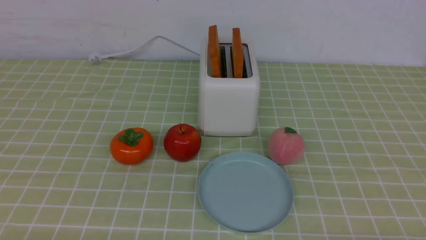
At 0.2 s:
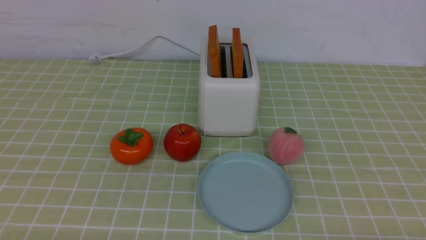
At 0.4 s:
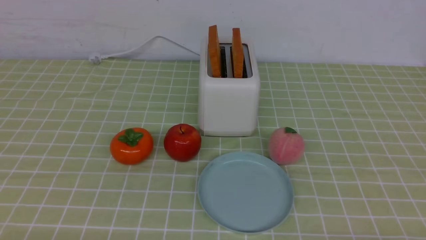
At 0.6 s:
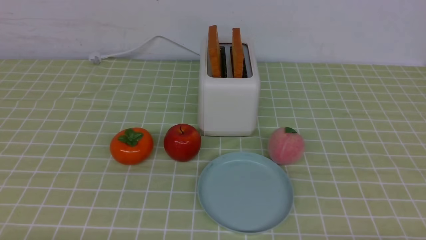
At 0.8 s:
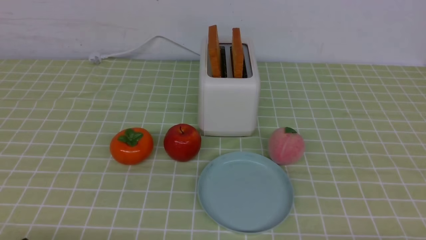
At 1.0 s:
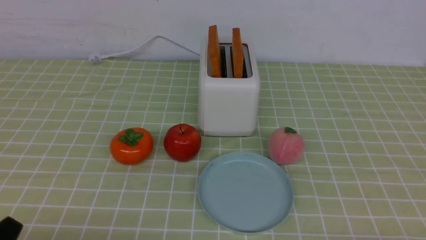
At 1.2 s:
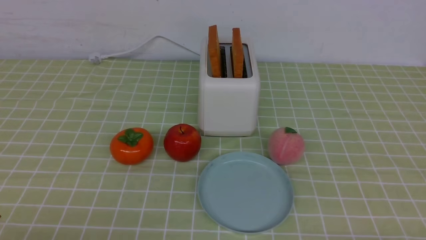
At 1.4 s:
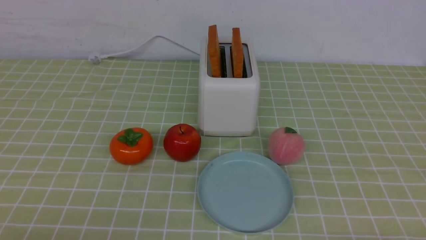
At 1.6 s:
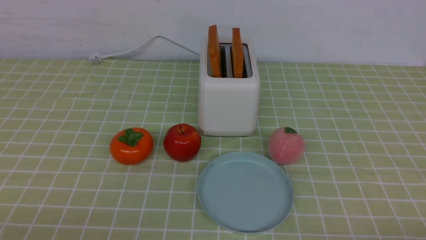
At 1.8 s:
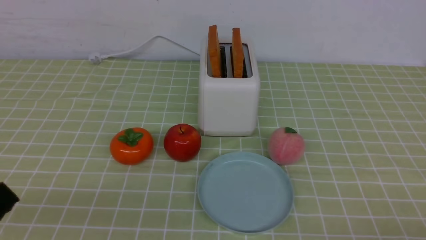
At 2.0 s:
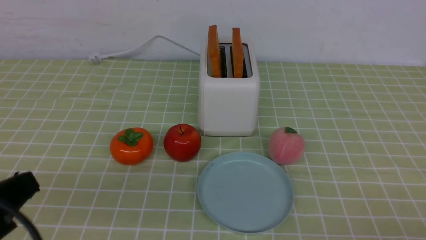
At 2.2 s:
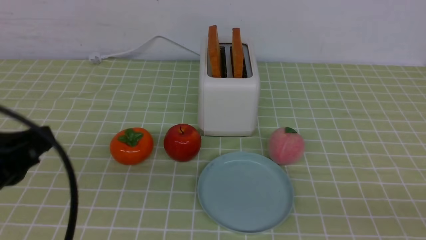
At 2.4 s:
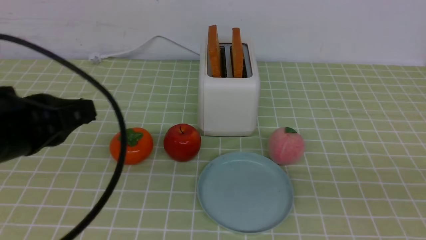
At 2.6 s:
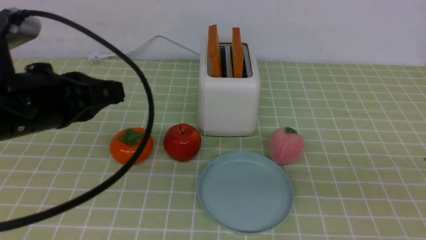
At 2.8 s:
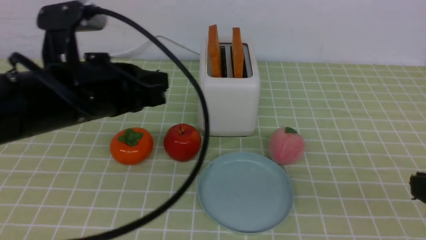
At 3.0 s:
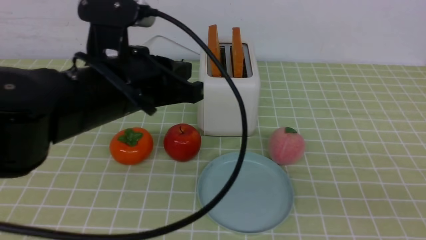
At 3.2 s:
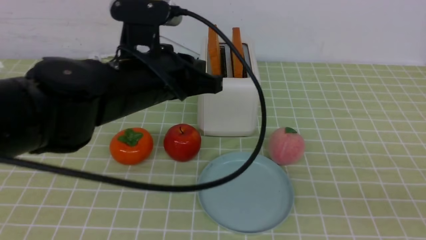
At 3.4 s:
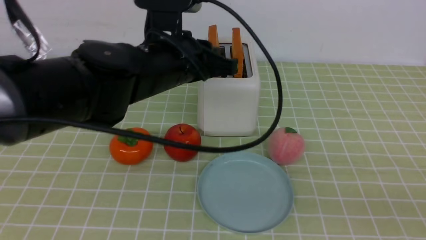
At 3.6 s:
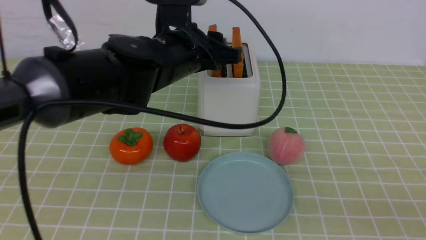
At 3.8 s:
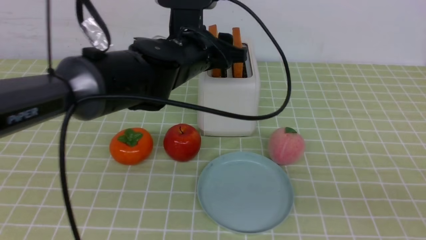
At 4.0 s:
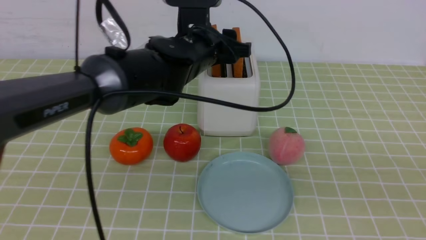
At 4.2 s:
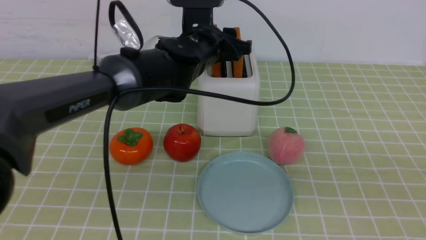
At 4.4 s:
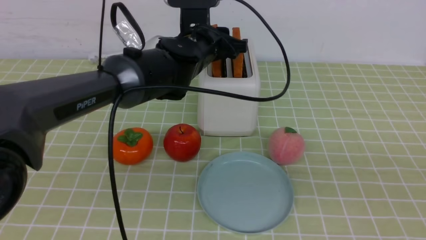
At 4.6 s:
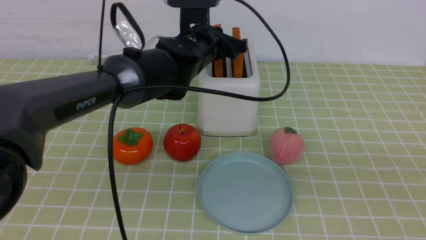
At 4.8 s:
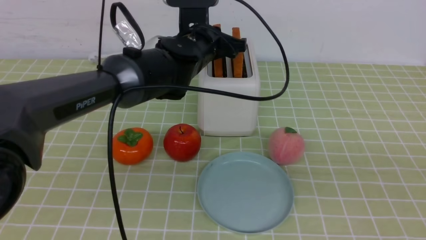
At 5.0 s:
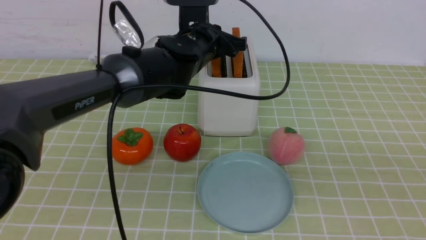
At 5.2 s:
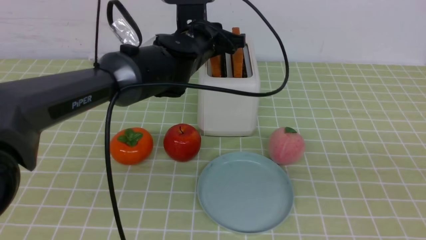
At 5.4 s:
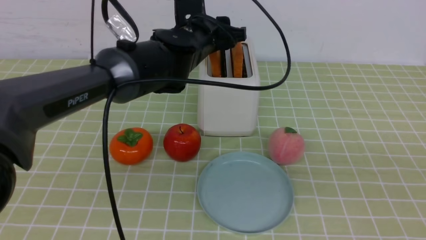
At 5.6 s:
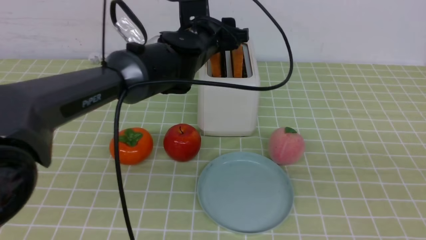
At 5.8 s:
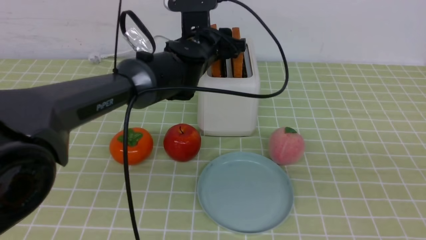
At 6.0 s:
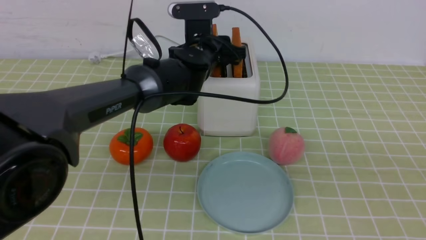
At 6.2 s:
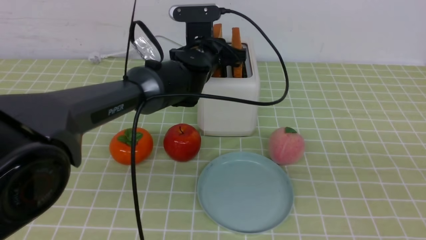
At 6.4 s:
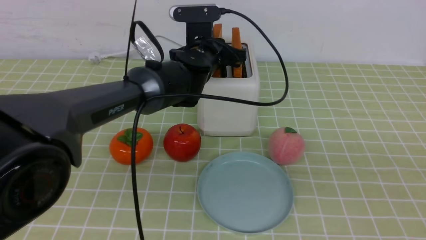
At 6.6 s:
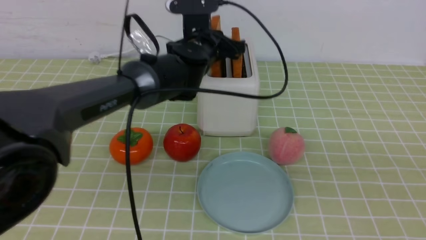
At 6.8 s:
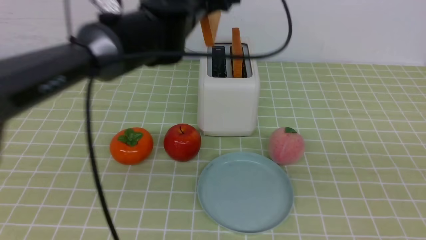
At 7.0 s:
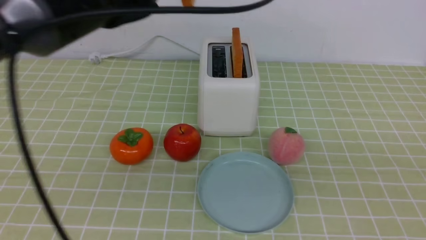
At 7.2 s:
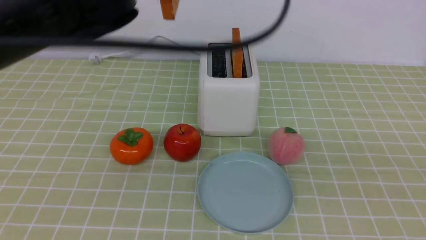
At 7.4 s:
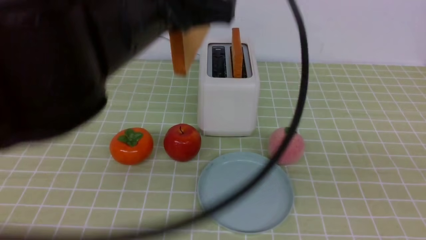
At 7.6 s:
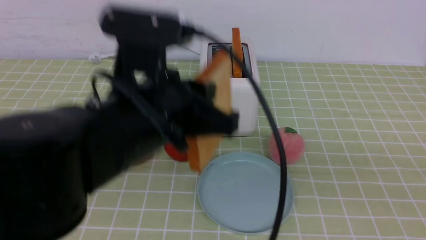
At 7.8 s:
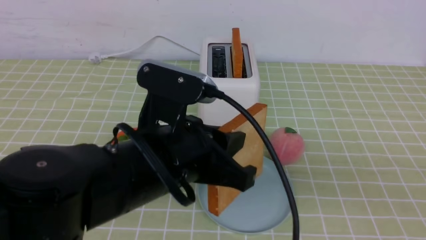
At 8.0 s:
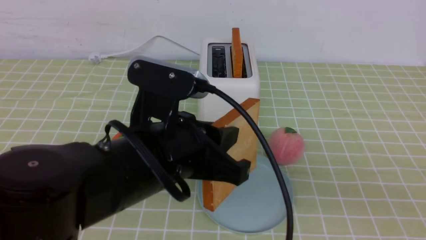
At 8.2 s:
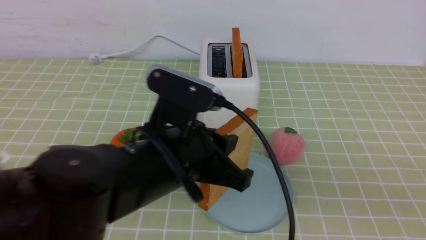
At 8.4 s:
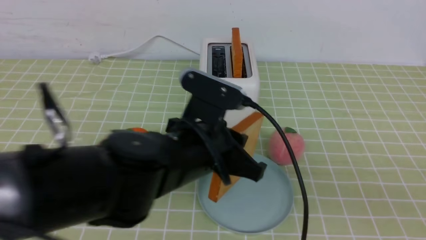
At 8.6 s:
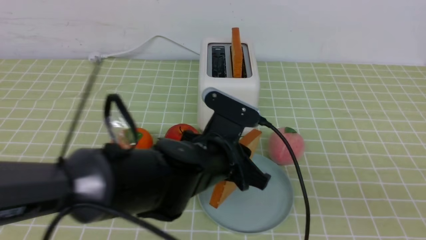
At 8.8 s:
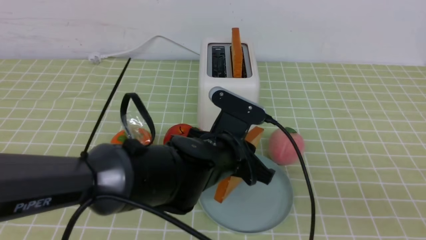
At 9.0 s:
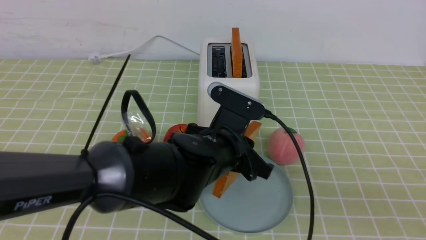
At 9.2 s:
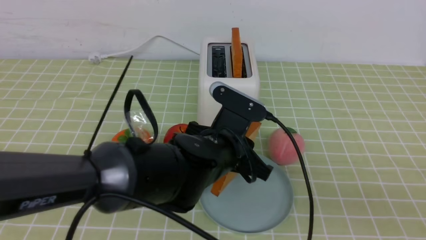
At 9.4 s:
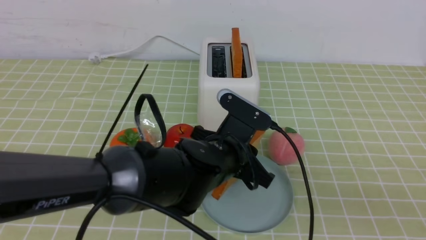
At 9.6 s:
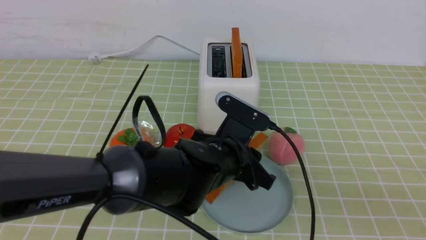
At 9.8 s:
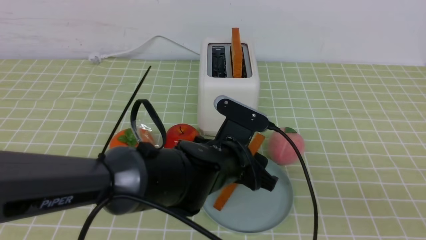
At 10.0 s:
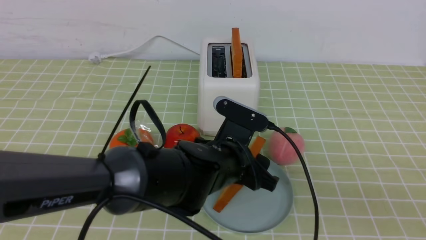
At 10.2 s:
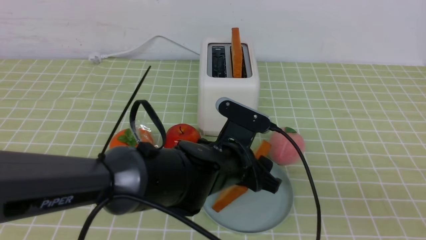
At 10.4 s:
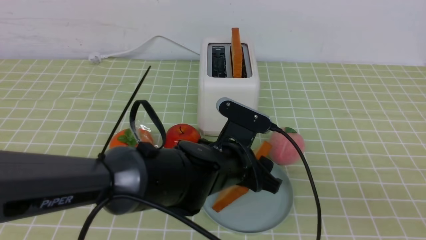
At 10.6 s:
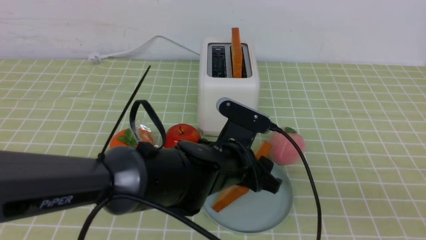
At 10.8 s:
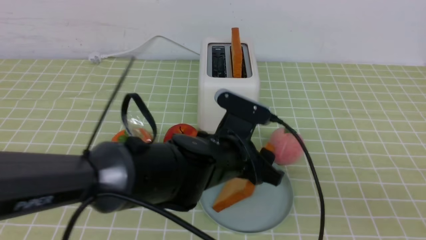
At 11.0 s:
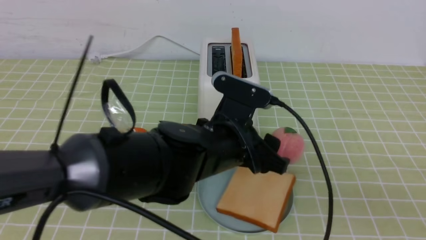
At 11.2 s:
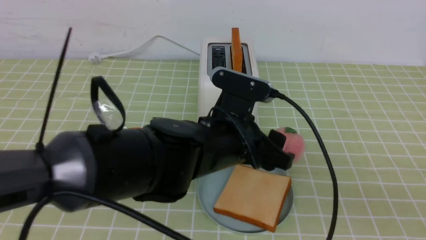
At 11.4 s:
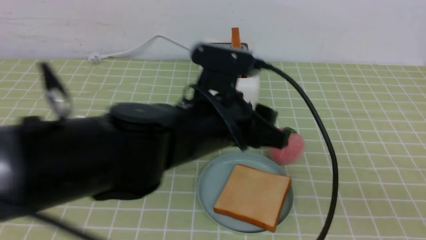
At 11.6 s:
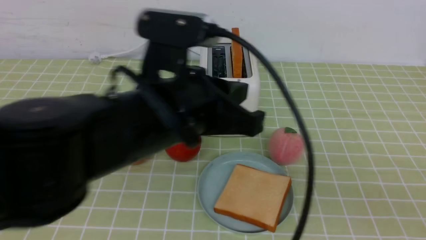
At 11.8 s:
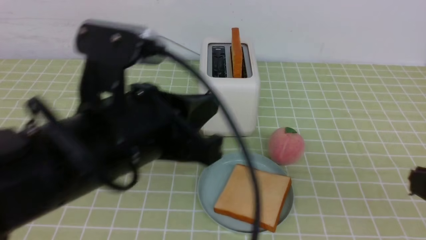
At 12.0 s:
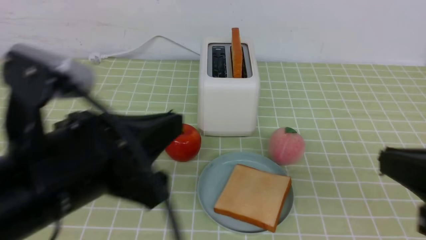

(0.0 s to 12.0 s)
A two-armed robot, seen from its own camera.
Task of the whole recording: take toasted bread from bread machine on green coffee tablecloth place on plate.
Step, 0.0 s - 6.8 s: use the left arm to take out a slice of bread.
Step, 7.0 s - 11.2 s: use the left arm to put a slice of bread into the empty plate.
1.6 s - 3.0 s: The left gripper goes some 25 cm forward, to the right and upward. Meanwhile the right gripper shifts some 15 cm upward, and closes.
3.0 s - 4.4 s: The left gripper shifts some 20 cm forward and to the right, and opens its fingers.
4.4 s - 6.0 s: The left gripper closes, then opens again.
6.0 s - 7.6 s: The left gripper shifts about 25 cm backward, and closes up.
7.6 s - 9.0 s: The left gripper travels downward, forward and to the right by some 15 cm.
9.0 s - 10.4 s: The left gripper opens its fingers.
10.4 s - 12.0 s: The left gripper heads to the left, backward and upward, covering approximately 25 cm, and closes, while the right gripper goes roughly 5 cm to the left.

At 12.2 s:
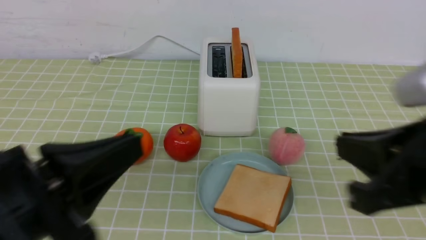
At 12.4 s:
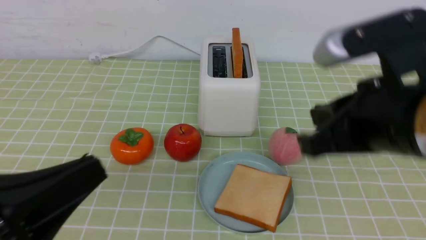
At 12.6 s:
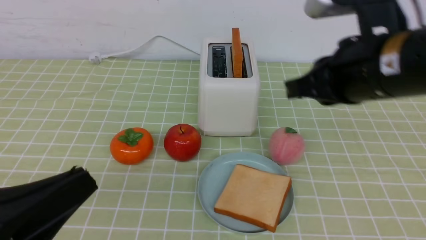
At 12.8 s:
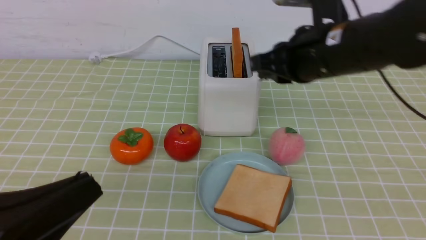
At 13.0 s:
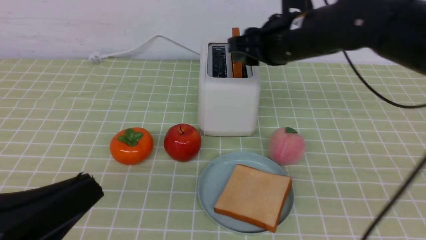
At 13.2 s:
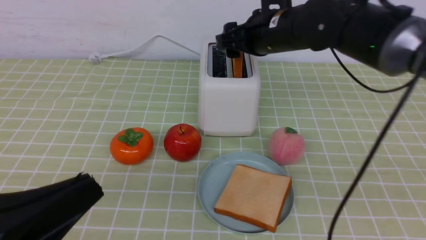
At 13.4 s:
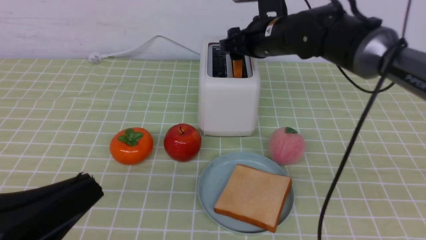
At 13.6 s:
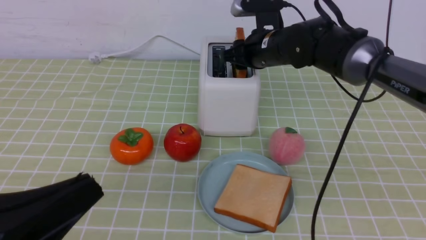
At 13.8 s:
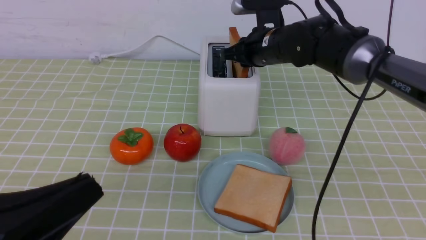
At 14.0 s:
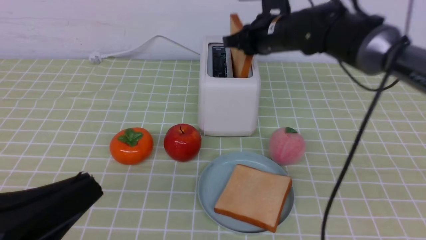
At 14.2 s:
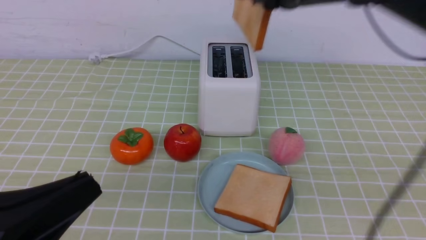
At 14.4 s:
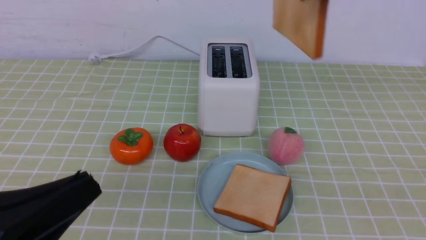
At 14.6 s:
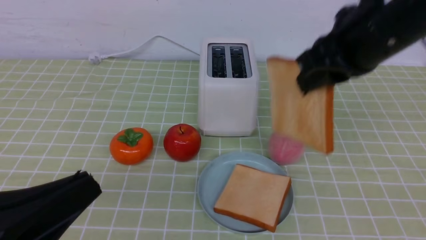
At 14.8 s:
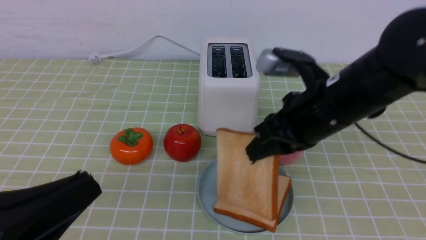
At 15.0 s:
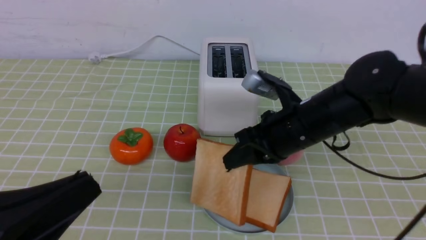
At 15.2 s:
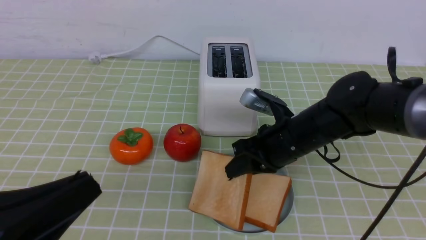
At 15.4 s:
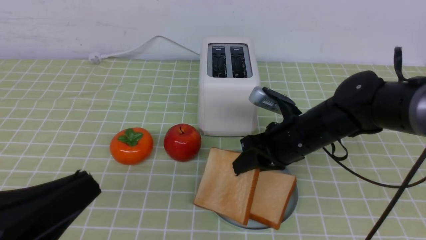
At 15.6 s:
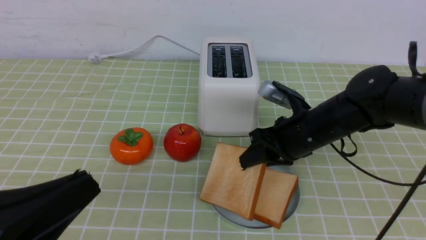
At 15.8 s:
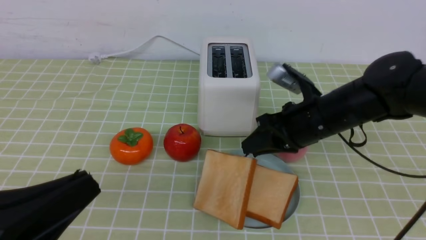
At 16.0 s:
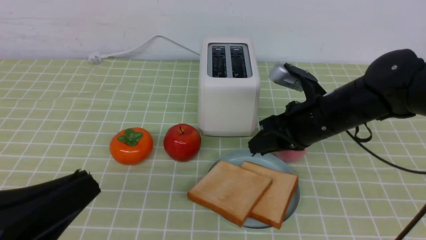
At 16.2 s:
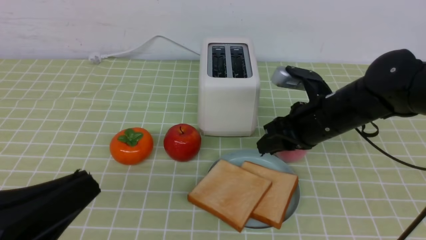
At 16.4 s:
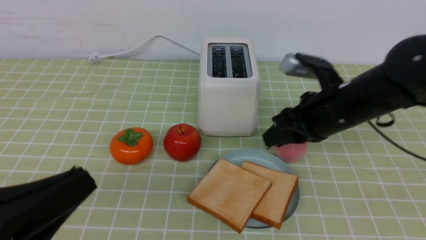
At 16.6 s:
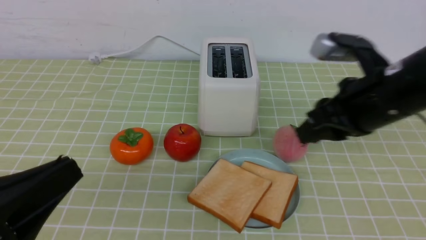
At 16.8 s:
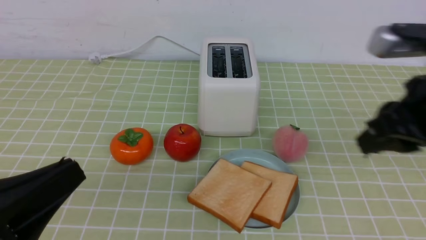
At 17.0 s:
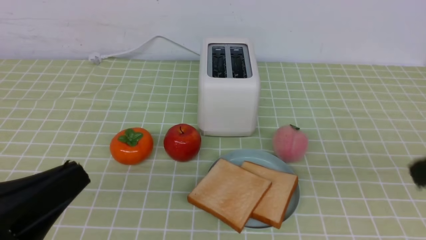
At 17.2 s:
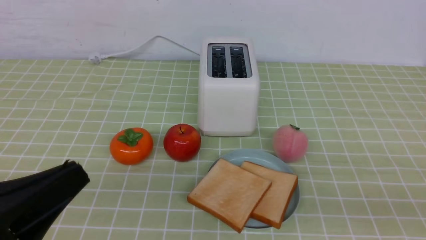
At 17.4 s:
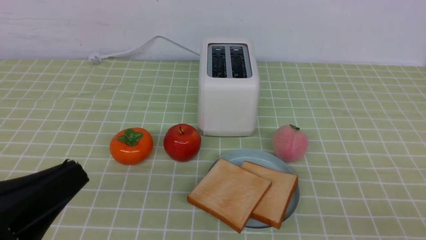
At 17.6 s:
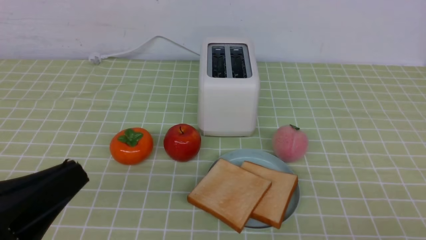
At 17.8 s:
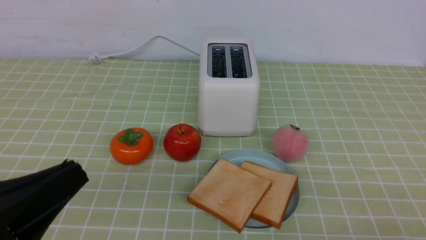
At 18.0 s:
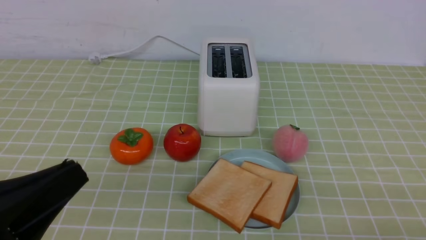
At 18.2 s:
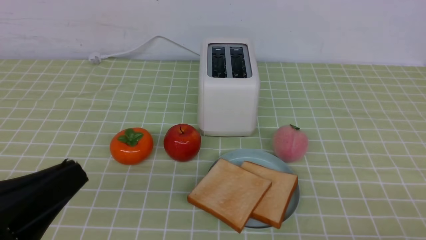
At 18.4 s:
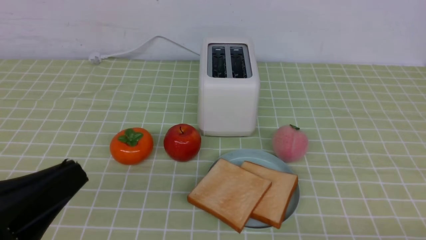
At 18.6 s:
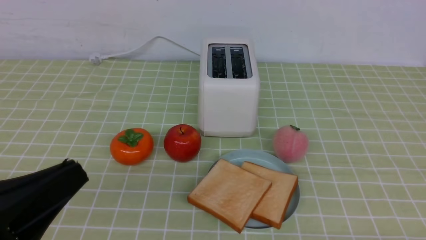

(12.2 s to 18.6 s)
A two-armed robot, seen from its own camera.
Task of the whole recording: take toasted bread from bread machine on green coffee tablecloth place on plate.
Step, 12.2 s - 14.2 s: use the right arm to take out a slice of bread.
Step, 14.4 s - 16.0 s: use the right arm to put a slice of bread into the plate.
12.2 s - 13.8 s: The right gripper is displaced forward by some 35 cm, and opens.
13.8 s - 15.4 s: The right gripper heads backward and downward, covering some 15 cm.
15.4 s - 17.0 s: The right gripper moves backward, upward and to the right, about 25 cm, and closes.
